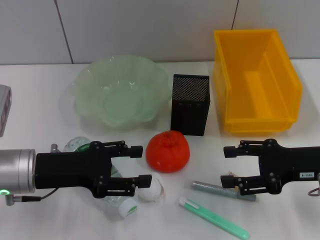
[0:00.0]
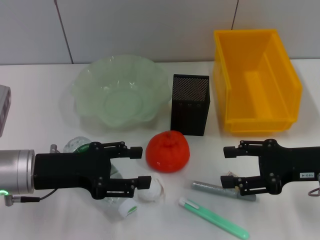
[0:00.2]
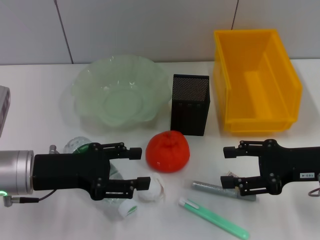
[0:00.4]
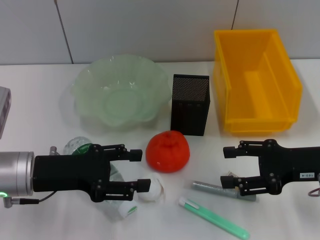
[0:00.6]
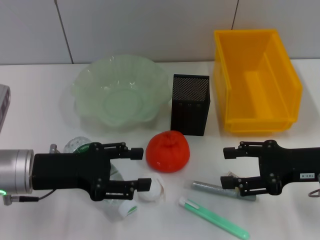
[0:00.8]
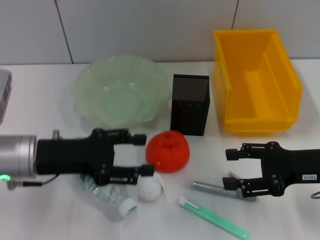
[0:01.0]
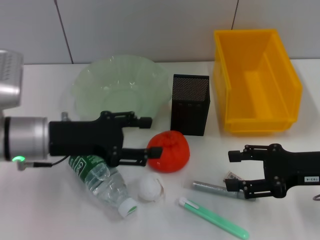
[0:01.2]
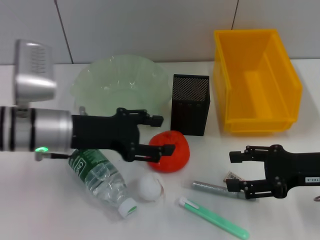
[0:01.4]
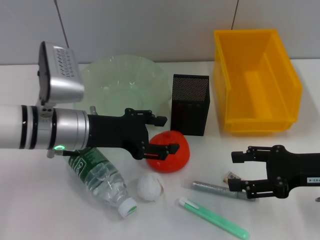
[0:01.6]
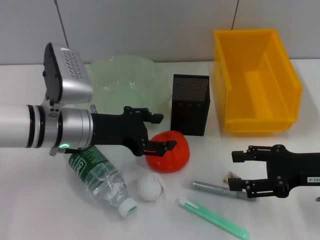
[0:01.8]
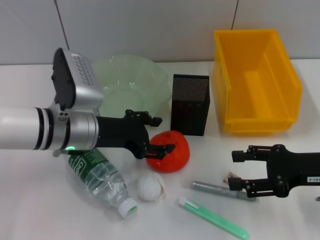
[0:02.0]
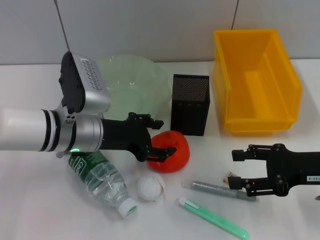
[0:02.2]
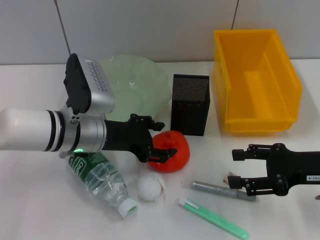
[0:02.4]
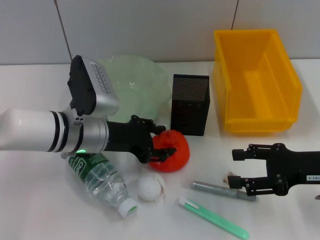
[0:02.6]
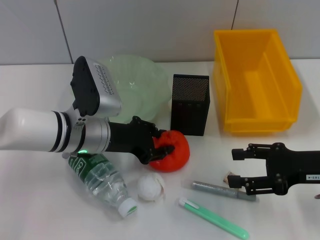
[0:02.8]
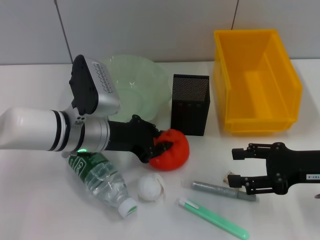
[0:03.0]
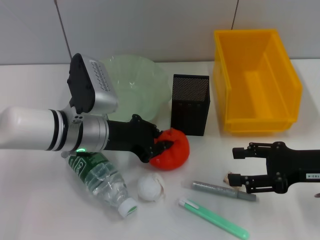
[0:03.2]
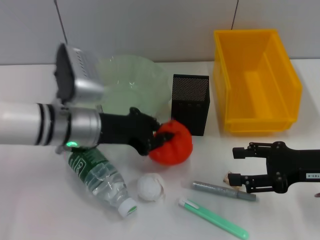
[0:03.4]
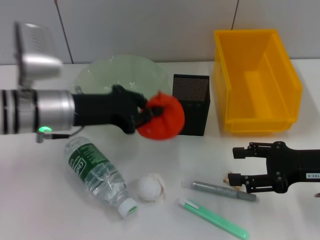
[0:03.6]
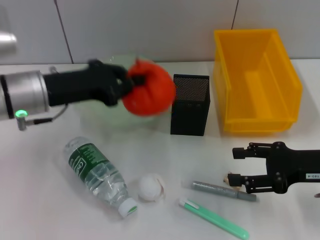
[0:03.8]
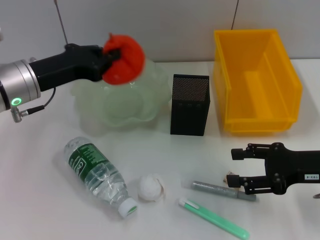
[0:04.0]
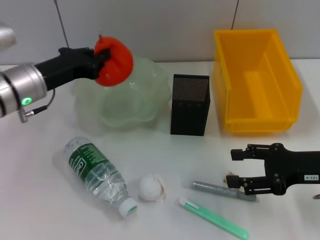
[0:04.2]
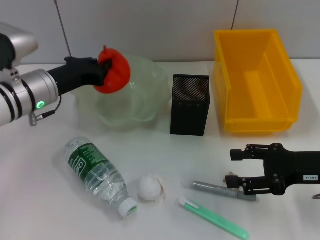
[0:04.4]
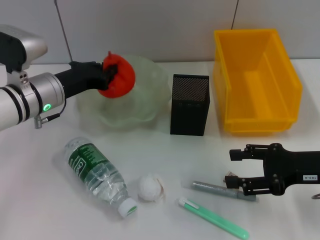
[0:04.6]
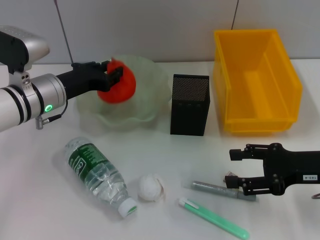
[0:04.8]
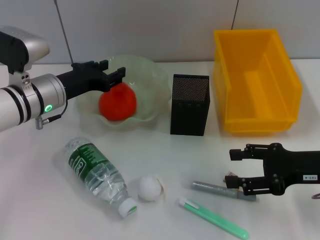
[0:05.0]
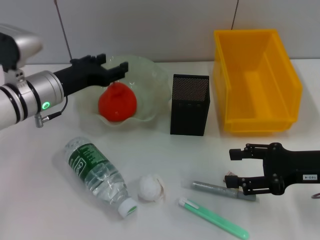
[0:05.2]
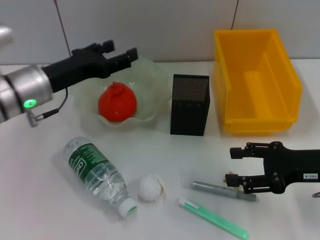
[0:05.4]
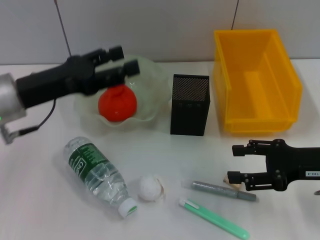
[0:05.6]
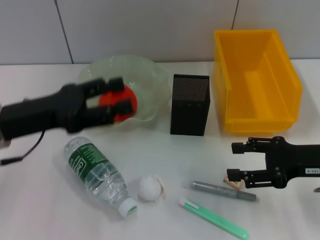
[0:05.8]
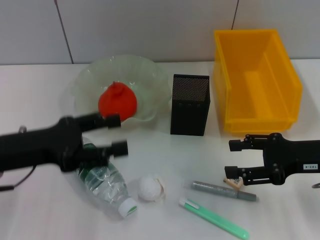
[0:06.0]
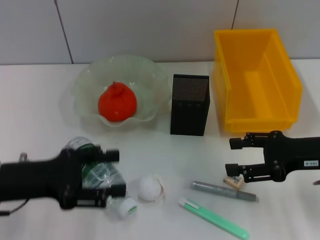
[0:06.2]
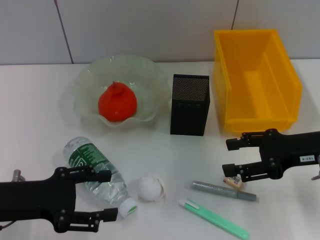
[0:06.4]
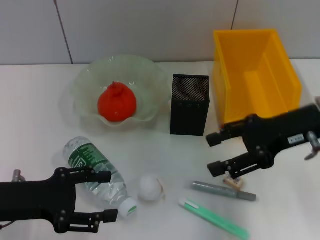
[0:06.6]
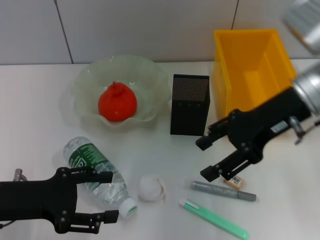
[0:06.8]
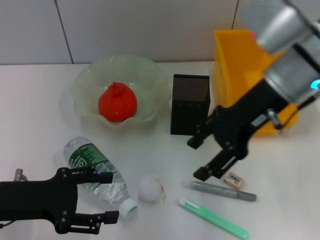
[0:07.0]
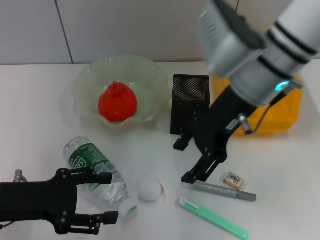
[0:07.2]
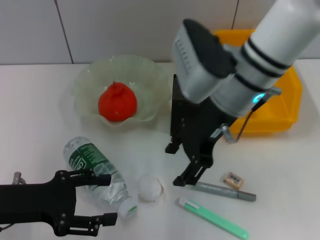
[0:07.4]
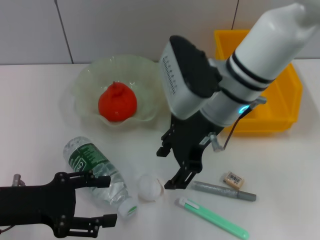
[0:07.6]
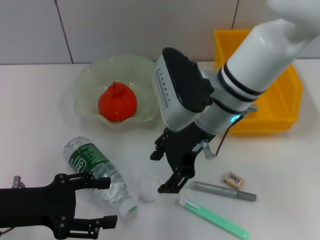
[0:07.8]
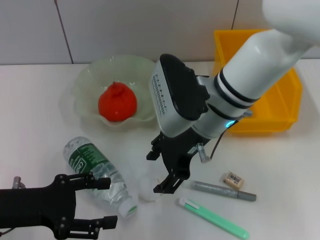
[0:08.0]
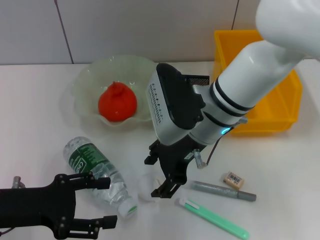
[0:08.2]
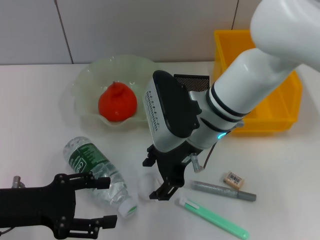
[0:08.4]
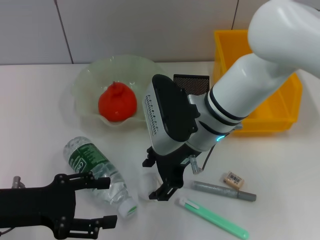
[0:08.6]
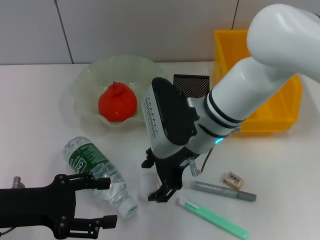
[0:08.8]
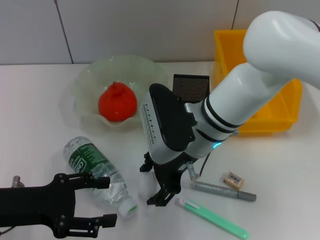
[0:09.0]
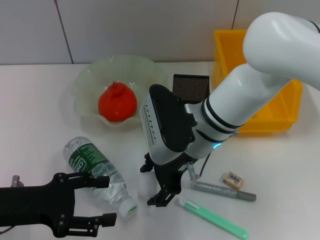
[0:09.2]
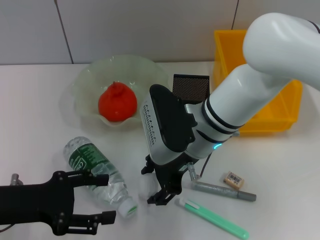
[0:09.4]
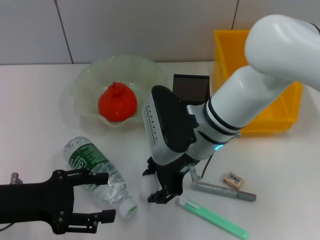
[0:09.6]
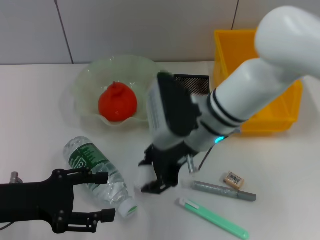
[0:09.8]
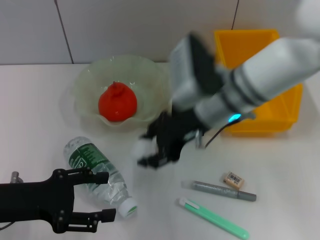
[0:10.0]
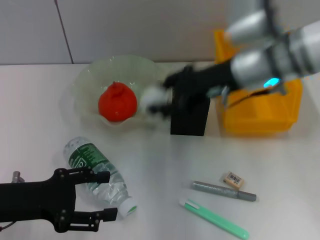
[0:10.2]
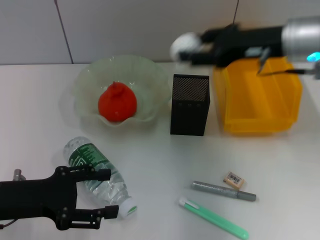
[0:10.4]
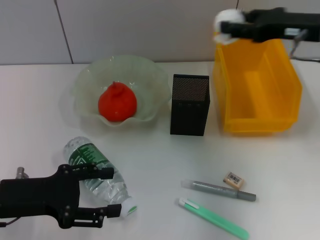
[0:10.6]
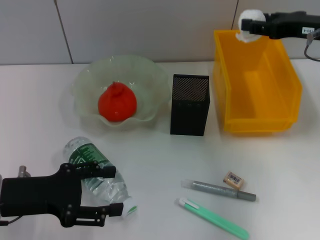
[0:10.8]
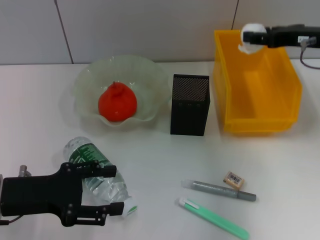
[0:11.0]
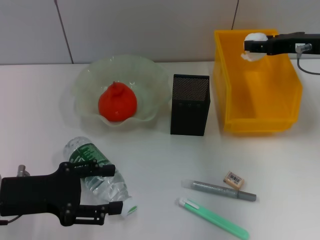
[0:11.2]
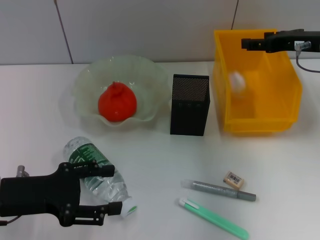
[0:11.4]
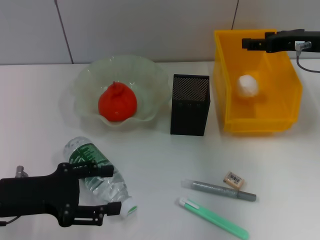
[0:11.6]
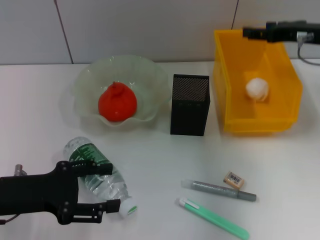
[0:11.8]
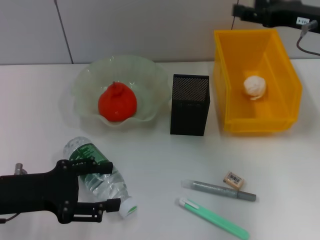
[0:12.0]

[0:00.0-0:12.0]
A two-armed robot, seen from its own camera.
Step, 0.0 to 3.0 s: Grab the orange with the left hand.
Step, 3.2 to 5.0 s: Place the orange into the fruit bowl with the left hand.
Step, 5.2 to 9.4 s: Grab the paper ball with the right hand.
Step, 9.6 to 11.6 s: Place the paper ball into the trash can with the right hand.
0.0 to 1.6 s: The left gripper is displaced to the right and forward by roughly 10 cm.
1.6 to 3.0 s: The left gripper closes up.
3.0 to 4.4 s: The left gripper moves to the left, approximately 5 cm, and closes.
4.4 to 6.0 s: The left gripper moves backward, roughly 10 cm, and opens.
6.0 to 7.6 s: The left gripper ends up about 5 cm from where it was. The right gripper moves to the left, about 20 cm.
7.6 to 9.0 s: The right gripper goes roughly 5 cm downward.
9.0 to 10.4 s: The right gripper travels to the right and upward by some 20 cm.
10.4 to 12.0 s: The right gripper heads to the right, covering about 5 cm.

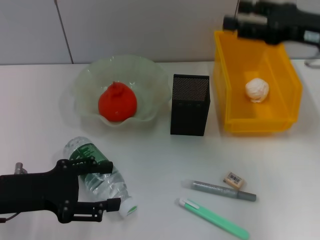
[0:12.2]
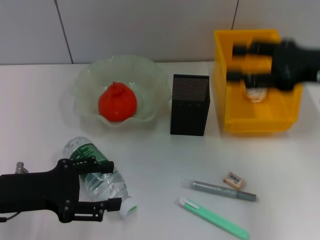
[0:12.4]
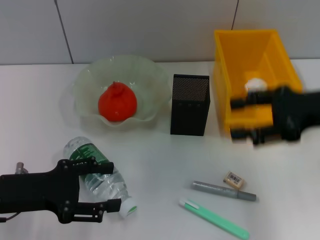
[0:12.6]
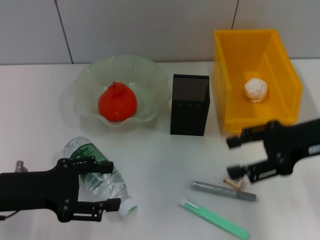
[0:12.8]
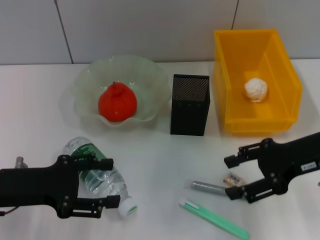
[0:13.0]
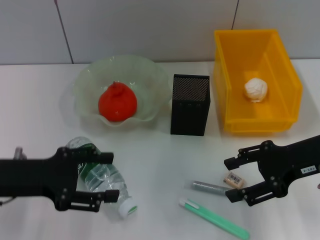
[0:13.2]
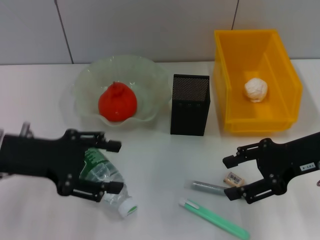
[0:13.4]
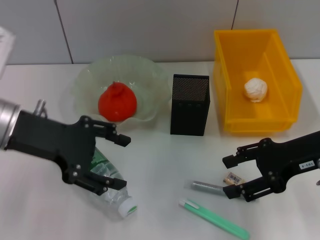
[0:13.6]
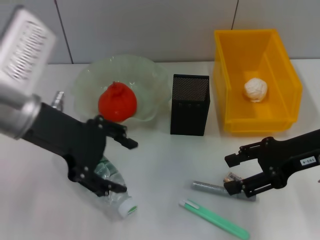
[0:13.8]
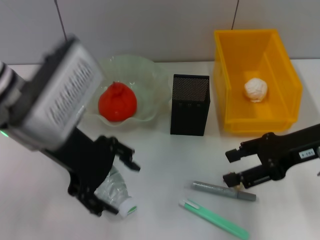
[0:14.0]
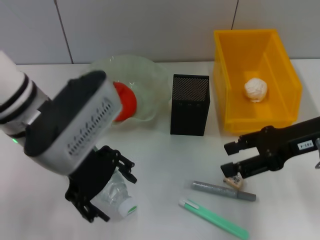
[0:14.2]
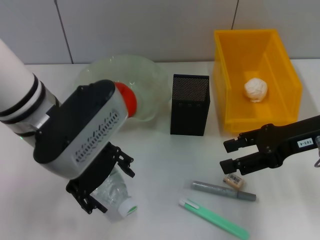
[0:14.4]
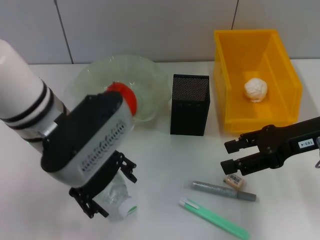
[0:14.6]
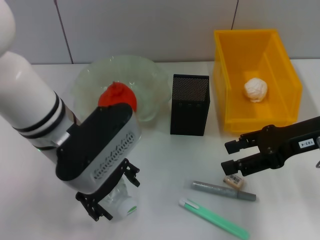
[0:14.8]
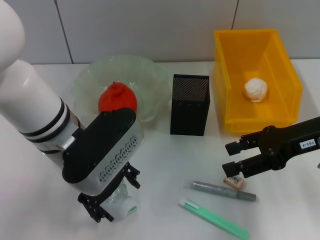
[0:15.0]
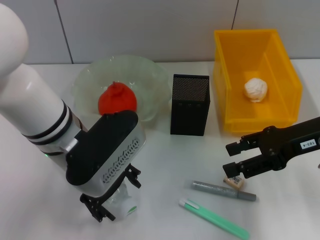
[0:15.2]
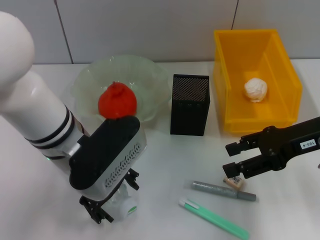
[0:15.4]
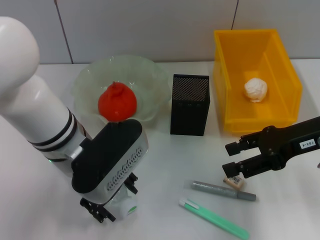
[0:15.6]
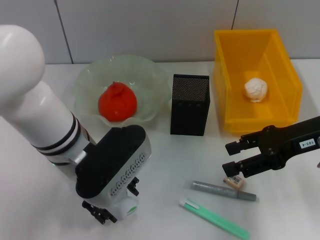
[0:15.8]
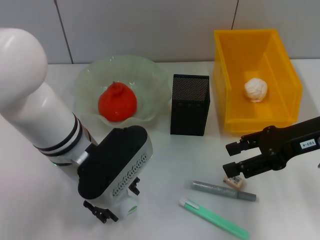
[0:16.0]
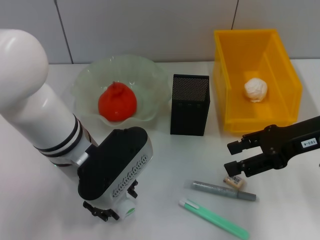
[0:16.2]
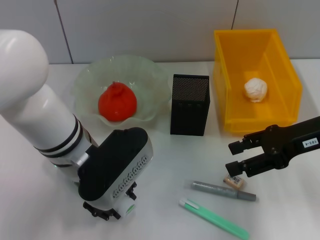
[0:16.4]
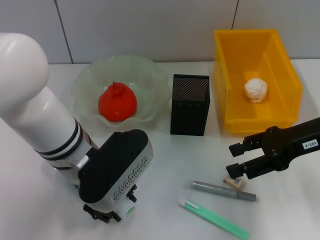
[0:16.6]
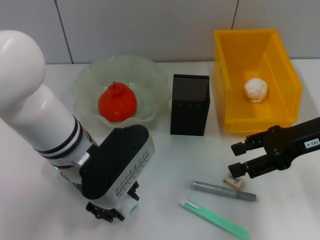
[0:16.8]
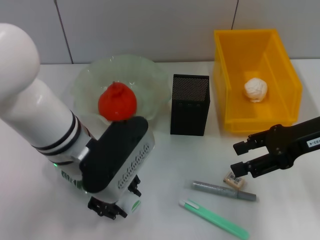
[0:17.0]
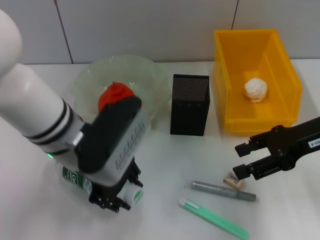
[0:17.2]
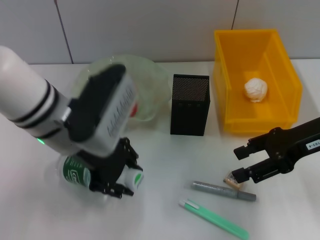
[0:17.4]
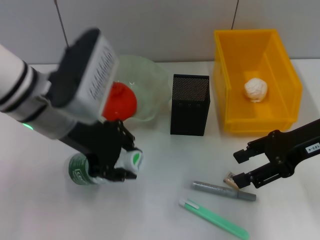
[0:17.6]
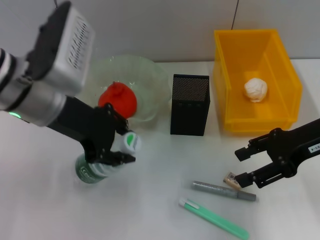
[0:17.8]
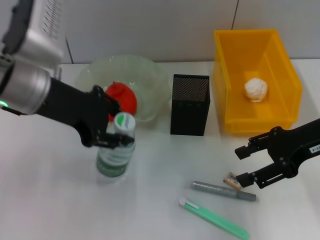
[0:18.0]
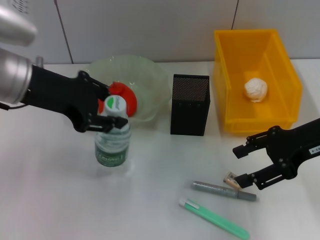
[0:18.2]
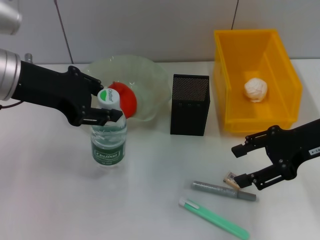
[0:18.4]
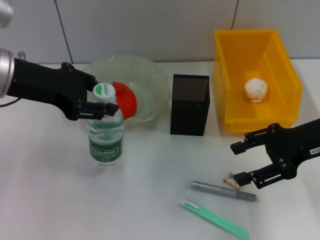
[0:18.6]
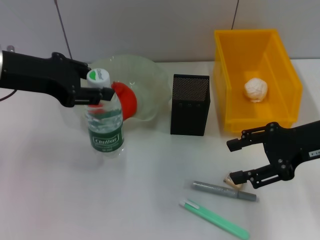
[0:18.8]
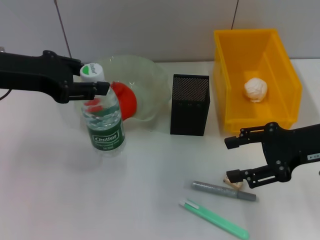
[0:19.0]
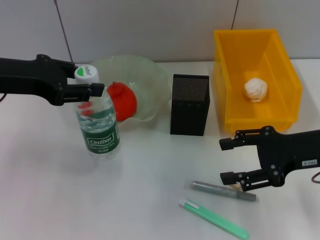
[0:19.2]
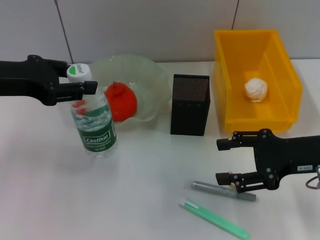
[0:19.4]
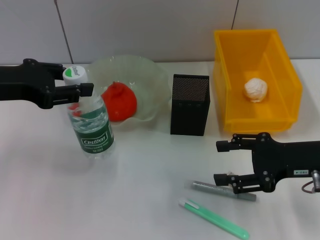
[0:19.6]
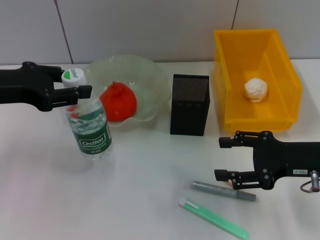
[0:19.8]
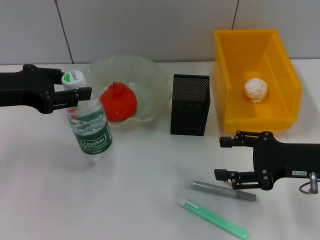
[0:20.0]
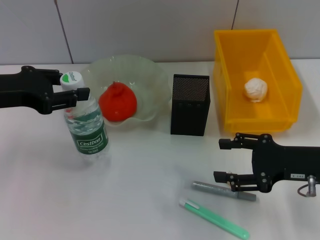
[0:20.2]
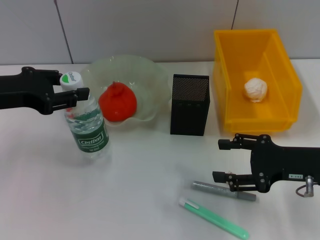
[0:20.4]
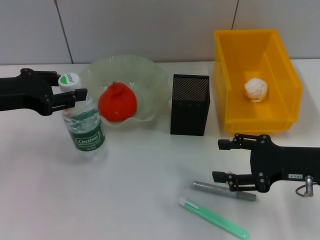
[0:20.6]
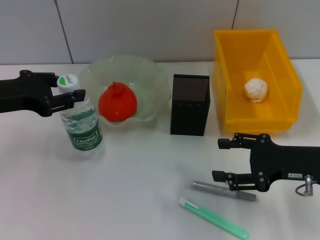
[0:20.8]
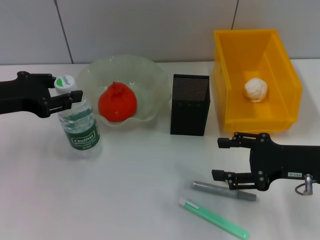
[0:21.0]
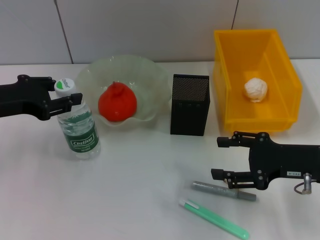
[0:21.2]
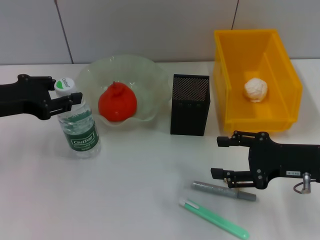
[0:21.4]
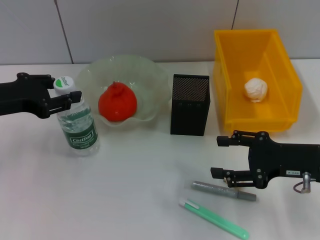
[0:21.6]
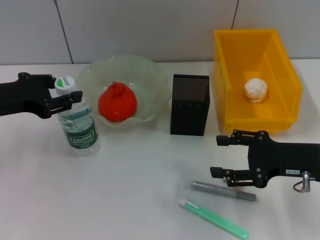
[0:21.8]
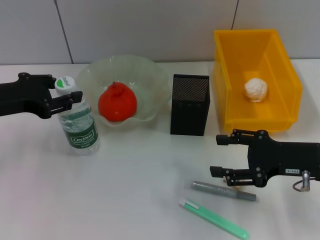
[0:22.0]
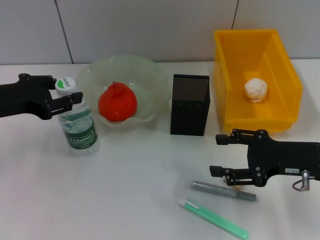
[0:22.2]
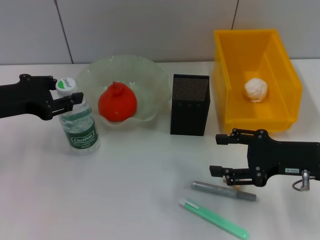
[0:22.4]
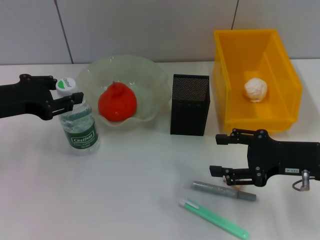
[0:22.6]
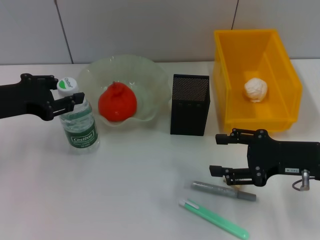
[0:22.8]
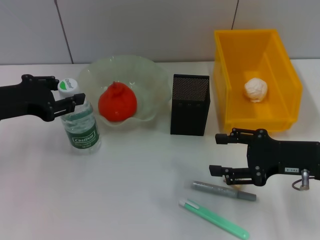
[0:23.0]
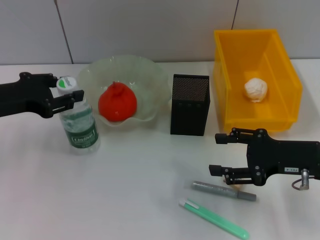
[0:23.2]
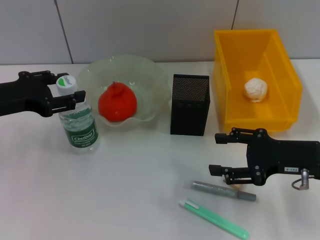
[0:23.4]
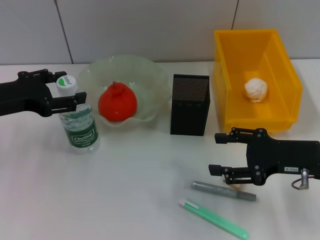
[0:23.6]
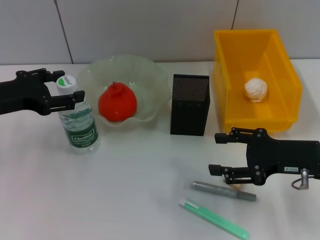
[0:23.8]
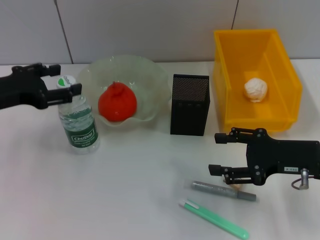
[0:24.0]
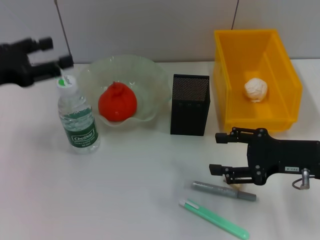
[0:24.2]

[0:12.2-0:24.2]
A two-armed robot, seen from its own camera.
Step, 12.2 to 16.6 s: Grab the water bottle with the left hand.
Step, 16.8 to 23.6 s: Place the water bottle on the table with the left hand.
12.2 to 13.8 s: The right gripper moves downward and backward, approximately 10 cm; the left gripper travels upward, to the right and forward by some 15 cm.
13.8 to 15.2 s: The left gripper shifts about 10 cm to the right and downward.
15.2 to 16.6 s: The left gripper closes.
16.6 to 18.2 s: The left gripper is displaced upward and to the left by about 15 cm.
18.2 to 19.8 s: The left gripper goes about 5 cm to the left. The right gripper moves downward, roughly 5 cm.
19.8 to 21.2 s: The grippers stay close to where they were, moving slightly.
21.2 to 22.6 s: Neither gripper changes place.
22.6 to 24.2 s: The left gripper opens.
